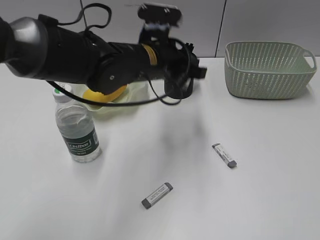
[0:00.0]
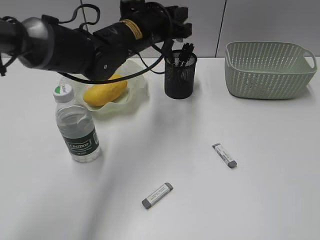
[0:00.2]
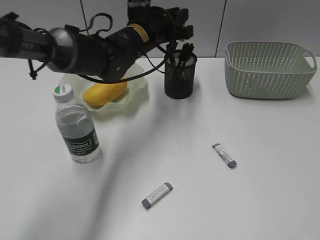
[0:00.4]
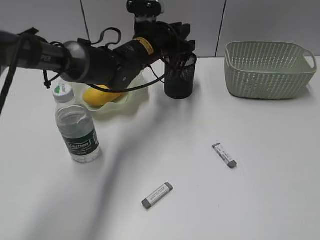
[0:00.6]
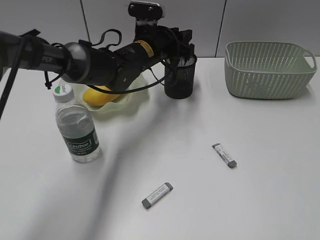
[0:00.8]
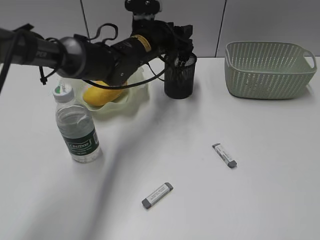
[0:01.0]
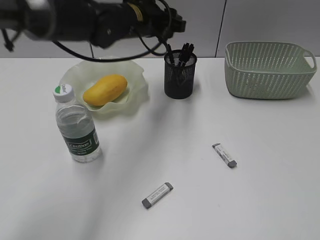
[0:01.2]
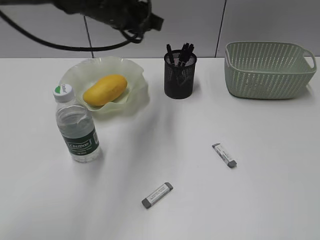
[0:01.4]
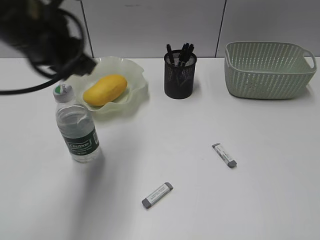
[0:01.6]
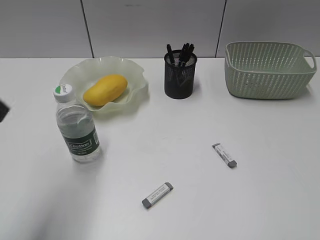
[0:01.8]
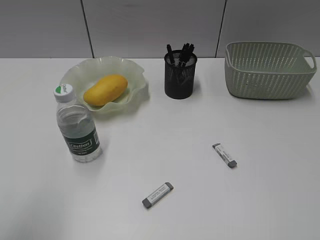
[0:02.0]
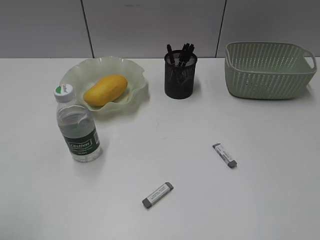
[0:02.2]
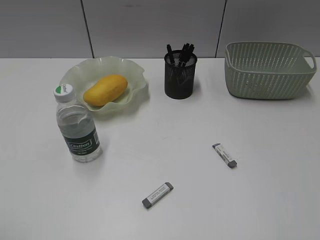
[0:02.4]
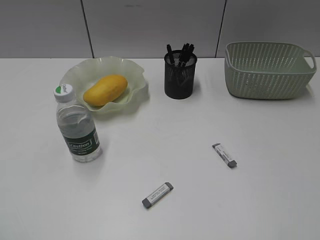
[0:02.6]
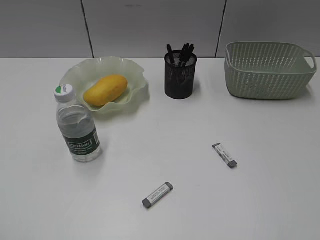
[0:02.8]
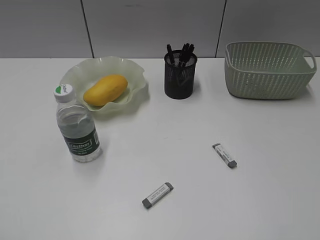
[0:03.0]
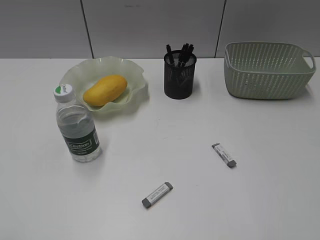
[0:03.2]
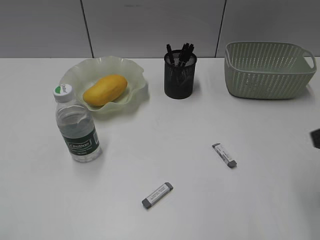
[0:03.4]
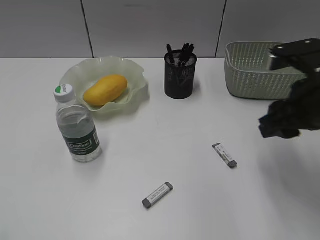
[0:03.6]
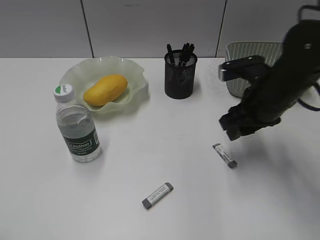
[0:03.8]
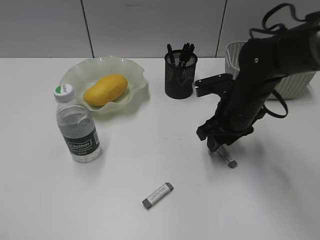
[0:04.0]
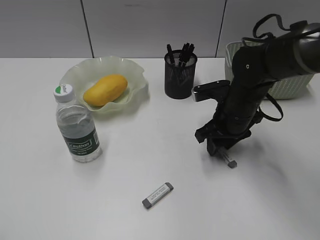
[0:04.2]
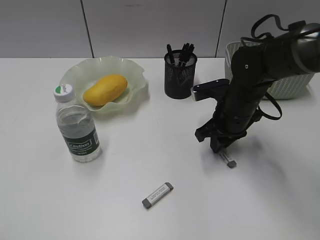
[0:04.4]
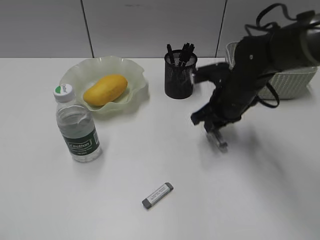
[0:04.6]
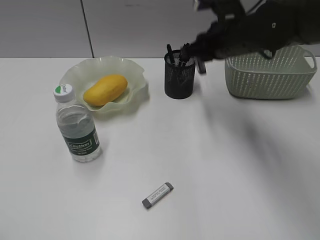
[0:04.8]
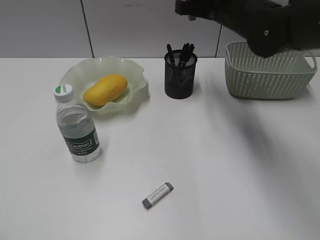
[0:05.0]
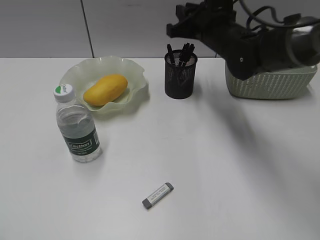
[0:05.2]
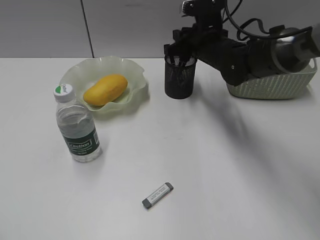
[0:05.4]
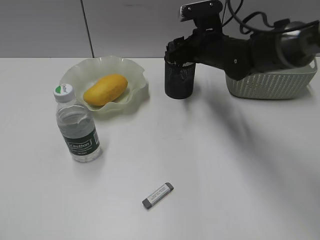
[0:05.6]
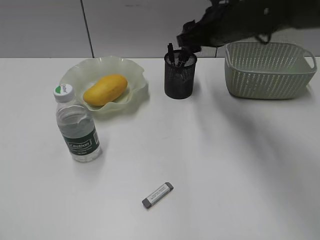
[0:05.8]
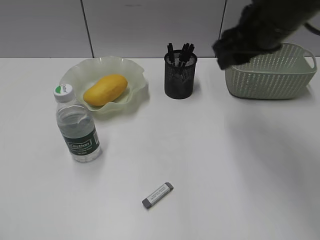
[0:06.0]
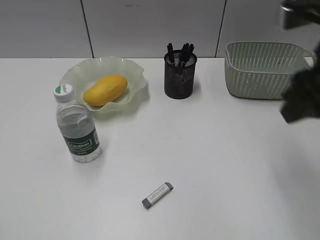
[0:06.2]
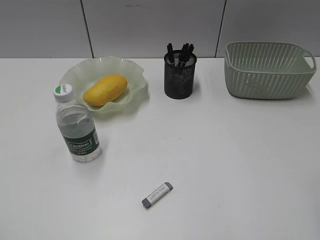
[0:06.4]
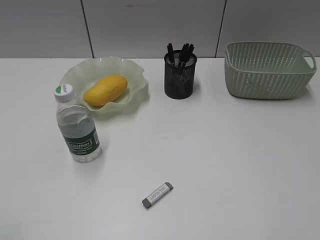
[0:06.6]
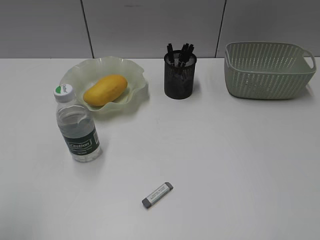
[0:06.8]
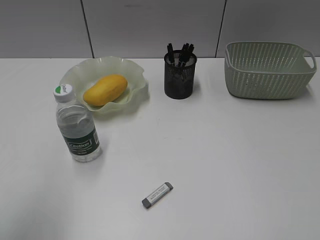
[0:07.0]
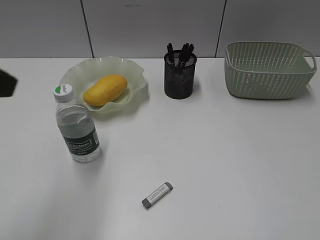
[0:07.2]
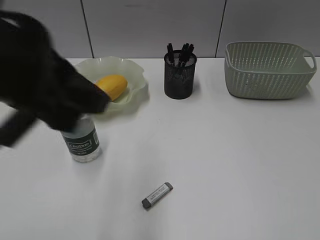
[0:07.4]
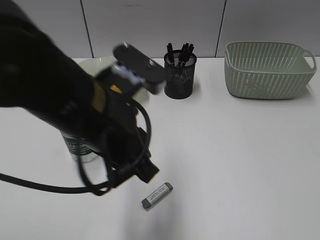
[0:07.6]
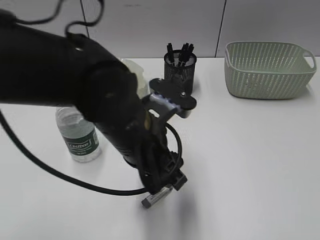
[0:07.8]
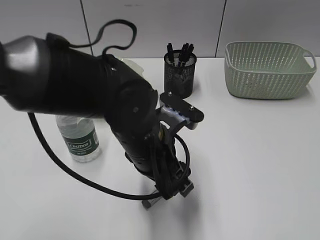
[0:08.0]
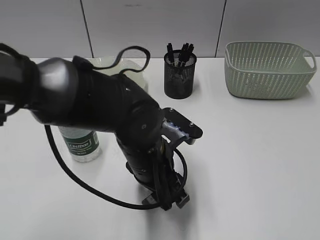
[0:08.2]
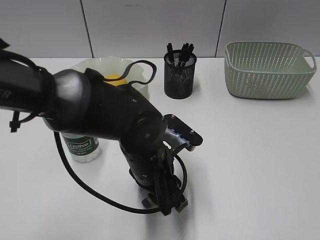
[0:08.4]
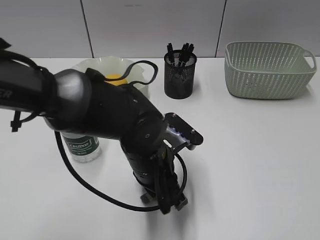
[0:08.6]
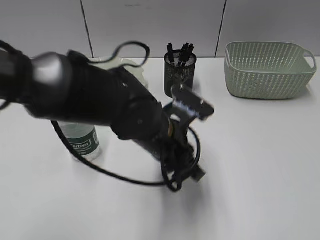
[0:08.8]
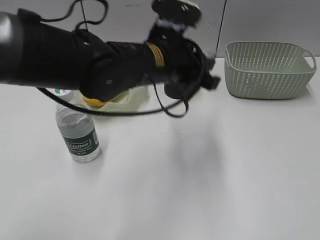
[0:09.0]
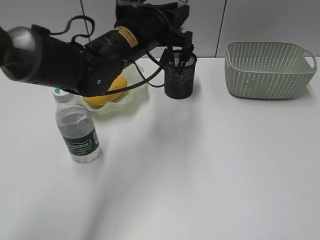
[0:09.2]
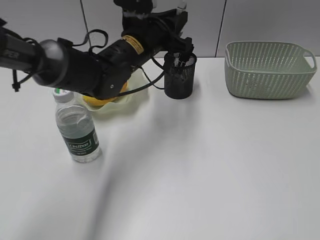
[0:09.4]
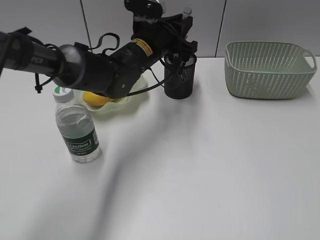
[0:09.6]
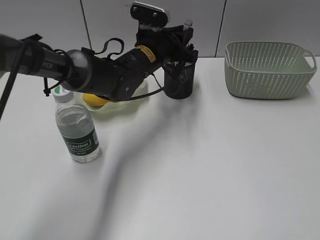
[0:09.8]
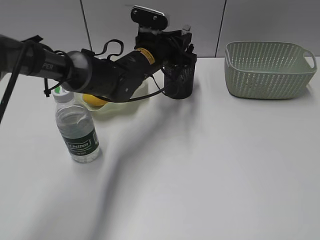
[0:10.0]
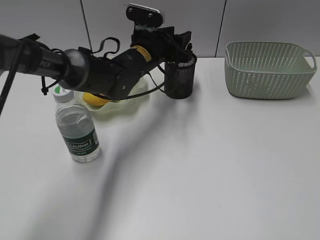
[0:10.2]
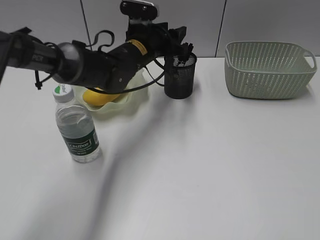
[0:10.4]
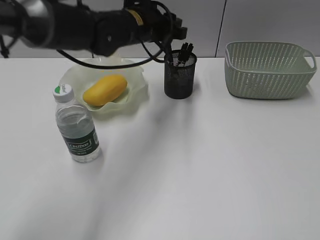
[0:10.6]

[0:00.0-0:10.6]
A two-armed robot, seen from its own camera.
Step, 0:00.0 to 0:01.0: Place the eraser in pen holder with left gripper.
Step, 0:01.2 to 0:04.4: Grasp the eraser with right gripper.
Step, 0:04.6 to 0:05.6: Place the eraser in pen holder with right gripper.
Step, 0:05.8 to 0:08.6: Grasp the eraser with left gripper.
Step, 0:08.8 to 0:10.2: Place the eraser in pen holder with left gripper.
0:00.0 to 0:01.6: The left gripper heads to the left, upward and backward, covering roughly 20 cm, and opens, then closes again.
0:01.6 to 0:03.0: The left gripper shifts about 35 cm backward and to the left, and opens.
0:03.0 to 0:04.6: The right gripper travels forward, to the left and downward by about 40 cm, and closes.
0:04.6 to 0:06.0: The right gripper goes up and down, approximately 15 cm each way, reversing 2 times, and opens up.
0:06.0 to 0:07.6: The right gripper moves backward and to the right, about 35 cm; the left gripper is displaced to the right and forward by approximately 35 cm.
0:07.6 to 0:09.0: The left gripper goes some 15 cm forward and to the right, moves some 15 cm downward and comes back, and opens, then closes again.
0:09.0 to 0:10.6: The left gripper shifts approximately 10 cm forward.

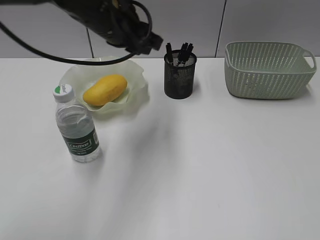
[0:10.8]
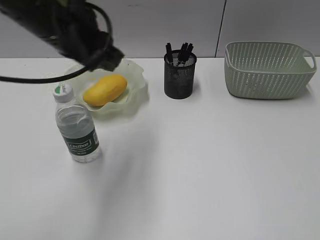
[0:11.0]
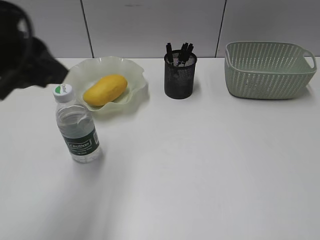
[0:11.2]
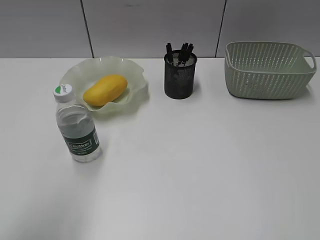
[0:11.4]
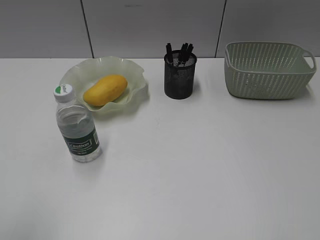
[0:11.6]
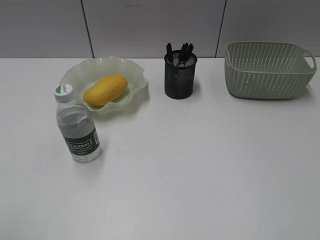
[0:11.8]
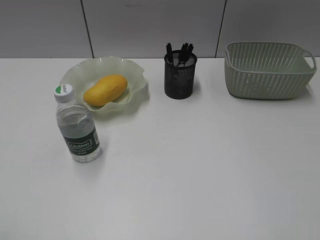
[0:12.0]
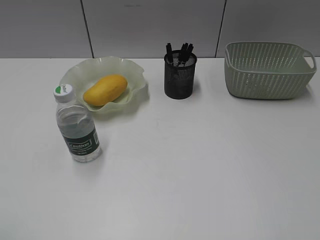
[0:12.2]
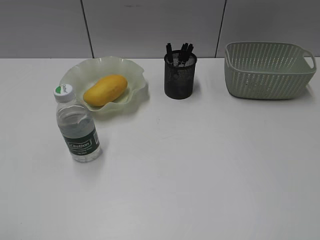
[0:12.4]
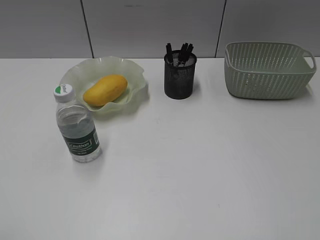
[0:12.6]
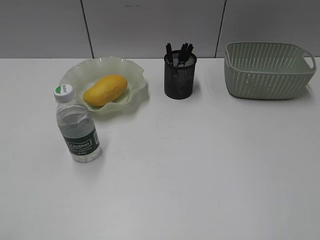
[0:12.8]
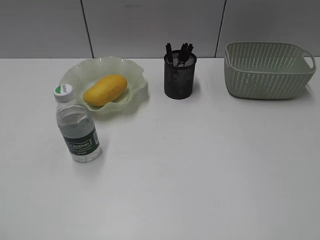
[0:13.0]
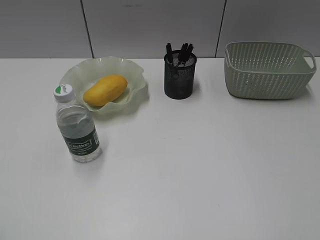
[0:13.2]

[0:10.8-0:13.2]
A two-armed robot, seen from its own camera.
0:10.8 to 0:12.0: The left gripper travels backward and to the left by about 40 cm.
